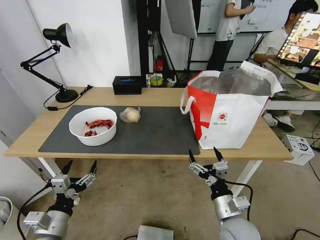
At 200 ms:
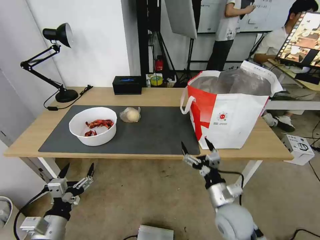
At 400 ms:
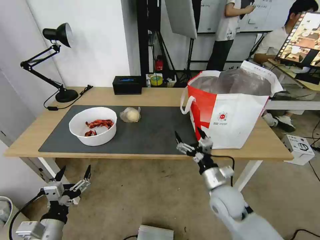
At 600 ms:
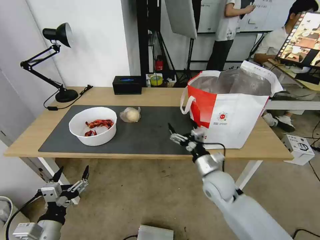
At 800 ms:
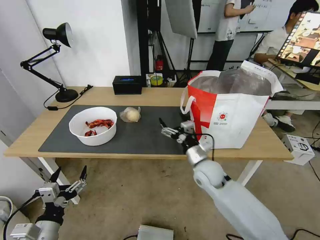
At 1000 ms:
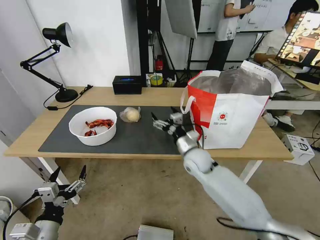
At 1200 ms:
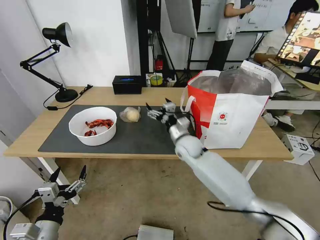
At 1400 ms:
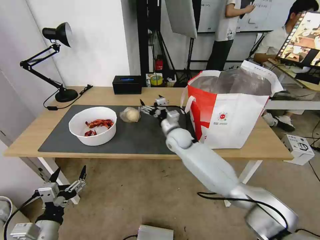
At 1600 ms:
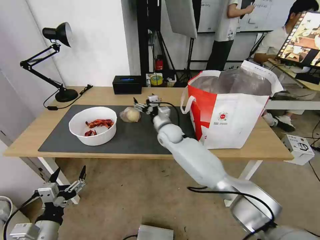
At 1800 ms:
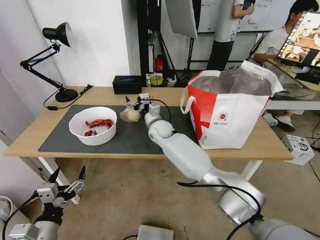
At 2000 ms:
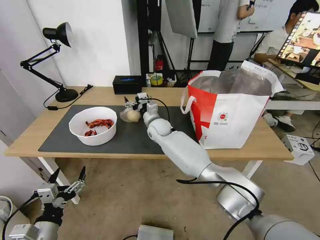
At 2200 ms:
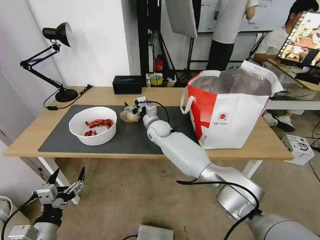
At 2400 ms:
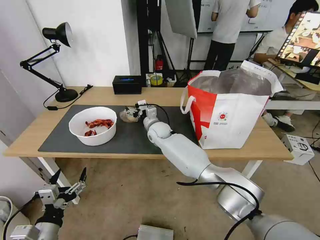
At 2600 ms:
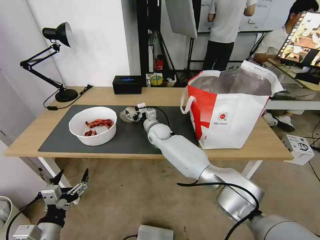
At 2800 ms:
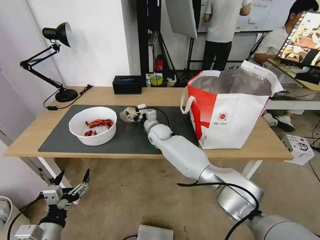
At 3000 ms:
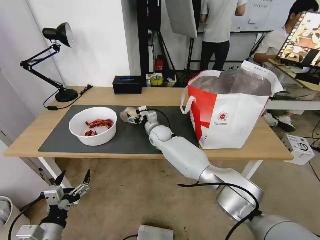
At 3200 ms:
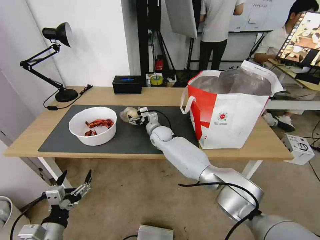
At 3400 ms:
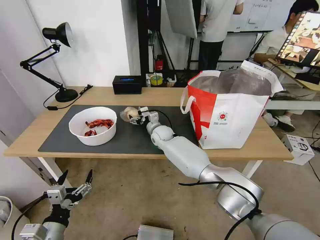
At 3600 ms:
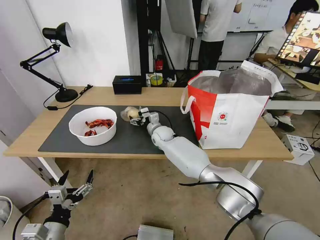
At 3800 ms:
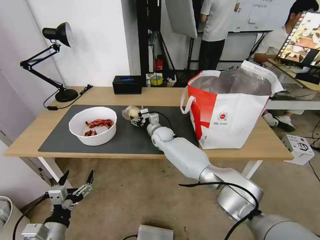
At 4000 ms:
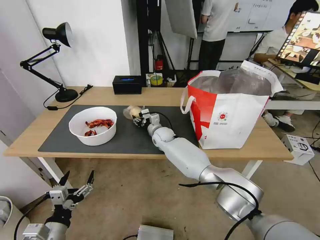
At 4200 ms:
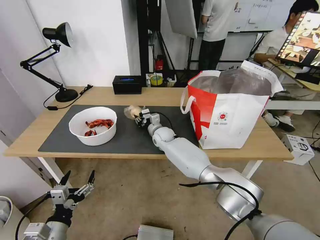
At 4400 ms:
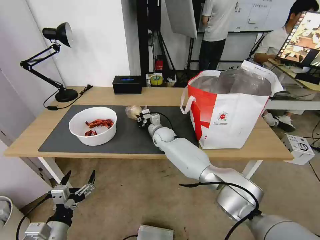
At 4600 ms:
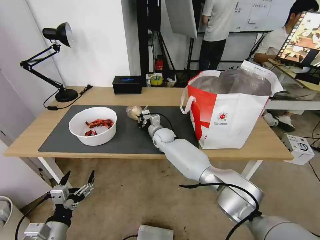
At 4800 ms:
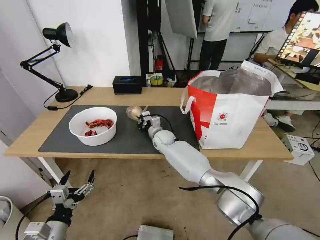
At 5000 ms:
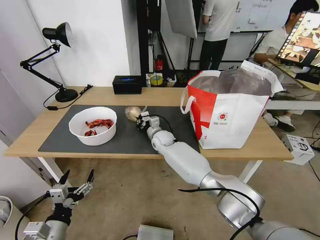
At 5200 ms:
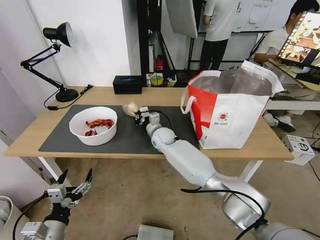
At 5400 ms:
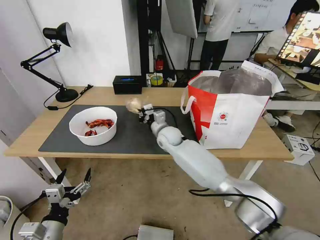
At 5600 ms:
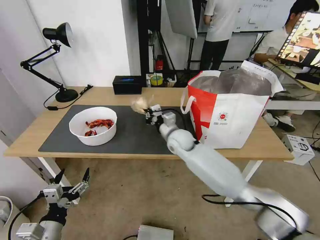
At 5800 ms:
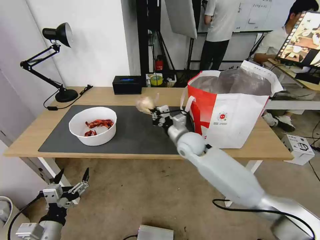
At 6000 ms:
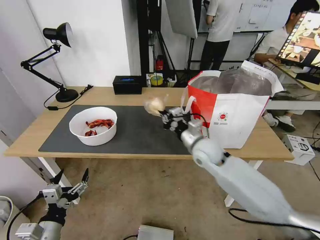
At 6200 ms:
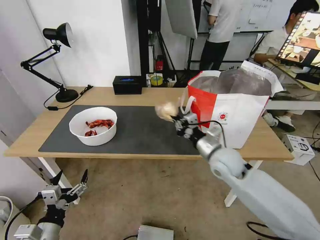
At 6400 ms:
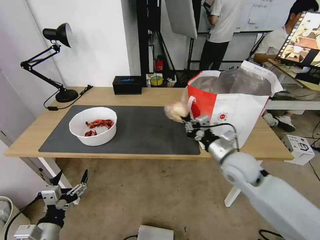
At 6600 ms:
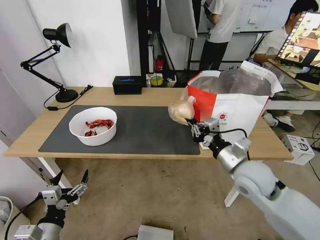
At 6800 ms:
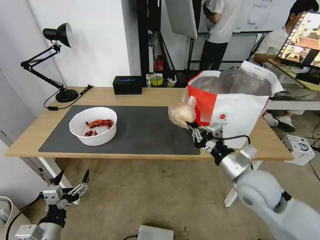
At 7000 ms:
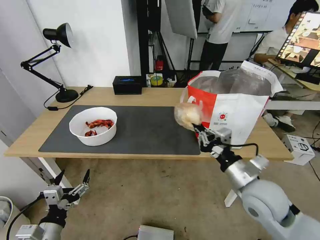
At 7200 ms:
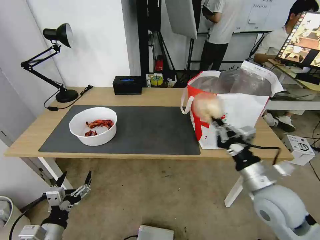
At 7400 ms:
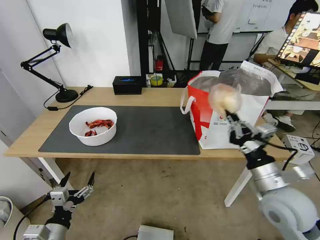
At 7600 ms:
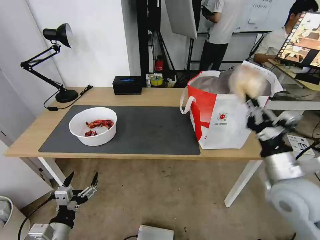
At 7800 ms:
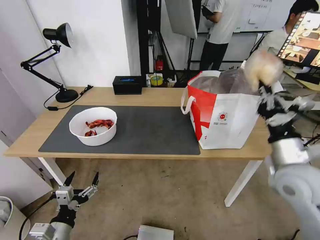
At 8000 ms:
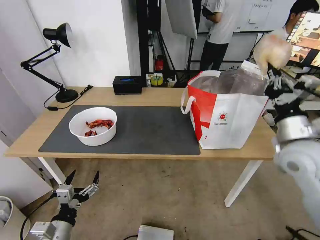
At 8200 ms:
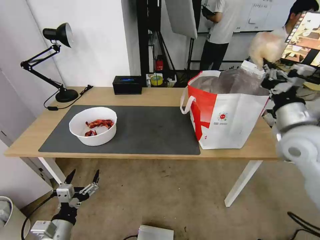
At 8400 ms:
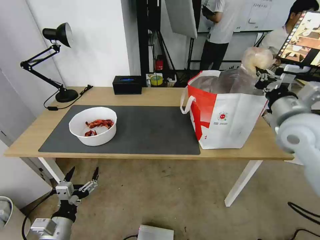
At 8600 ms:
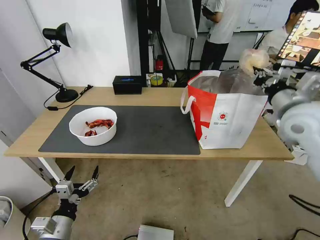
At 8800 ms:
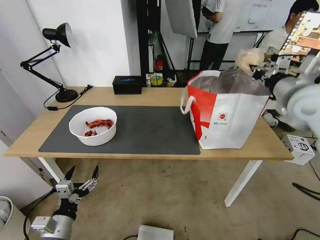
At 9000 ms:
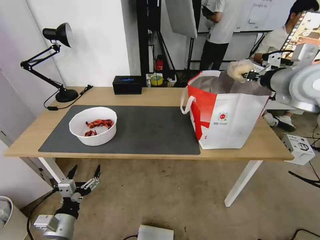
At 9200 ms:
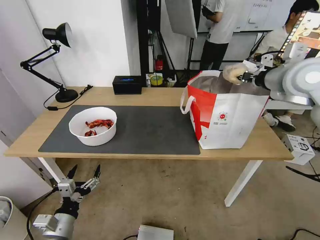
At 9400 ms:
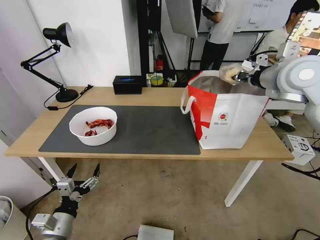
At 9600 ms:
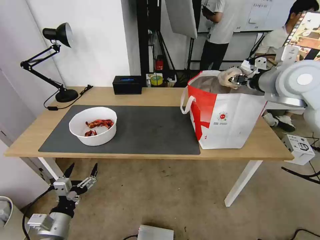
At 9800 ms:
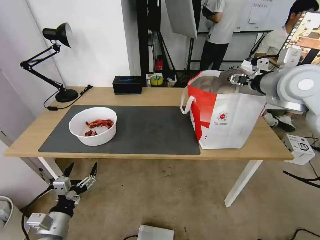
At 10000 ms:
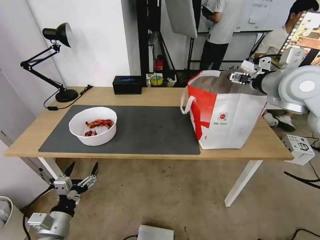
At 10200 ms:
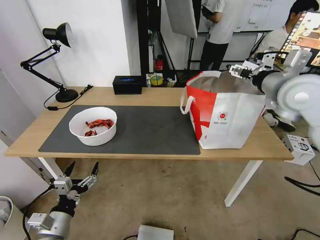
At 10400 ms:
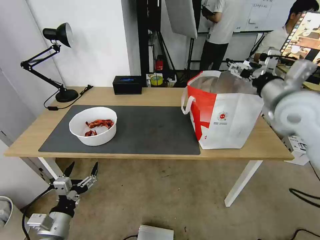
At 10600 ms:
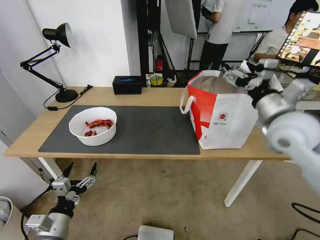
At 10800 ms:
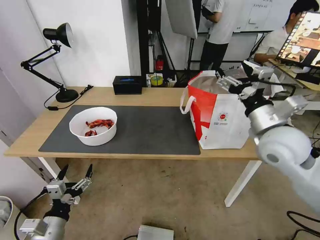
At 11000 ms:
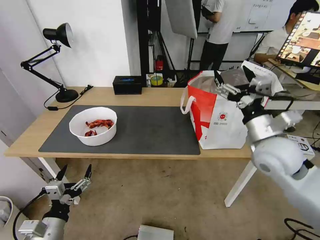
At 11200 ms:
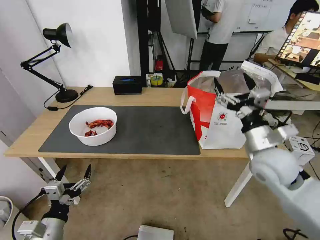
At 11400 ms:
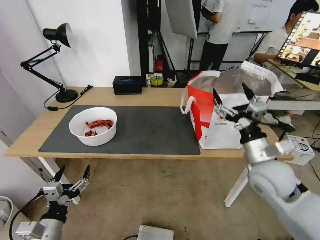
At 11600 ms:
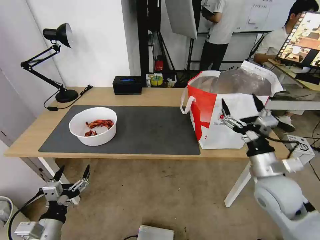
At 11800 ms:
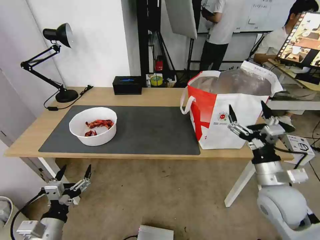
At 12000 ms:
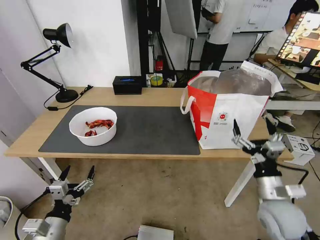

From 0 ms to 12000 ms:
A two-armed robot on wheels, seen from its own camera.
Task of the whole recording: Pick up the trash from the table and place it into the takeout bag.
From 0 ms to 1600 ms: The right gripper heads forward and to the left, covering approximately 40 cm.
From 1600 ms to 3000 ms: The right gripper ends up approximately 5 cm from where it was.
From 3000 ms to 4400 ms: The right gripper closes its fingers.
From 4400 ms to 6000 ms: The right gripper shifts roughly 25 cm backward, to the right and upward.
From 6000 ms to 7600 ms: The right gripper shifts roughly 20 cm backward and to the right.
From 7600 ms to 9000 ms: The right gripper travels upward and forward by about 25 cm.
From 9000 ms to 10400 ms: The right gripper goes roughly 5 cm downward, and opens its fingers.
From 10400 ms to 12000 ms: The right gripper goes roughly 30 cm downward and backward.

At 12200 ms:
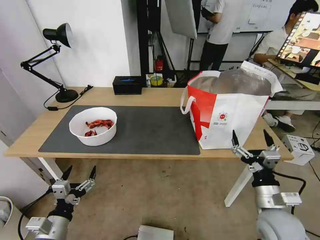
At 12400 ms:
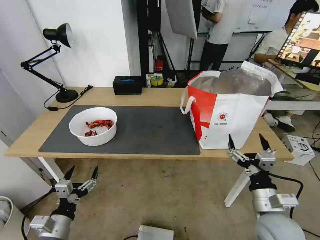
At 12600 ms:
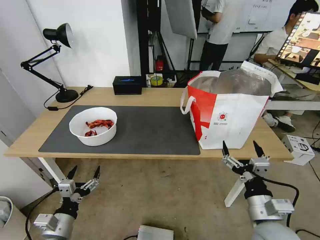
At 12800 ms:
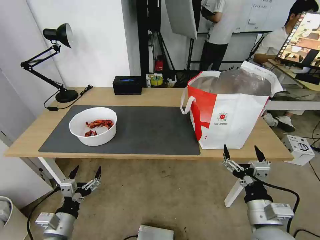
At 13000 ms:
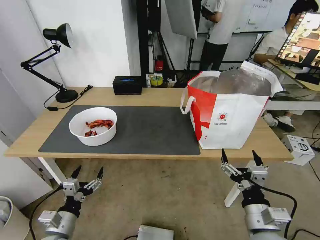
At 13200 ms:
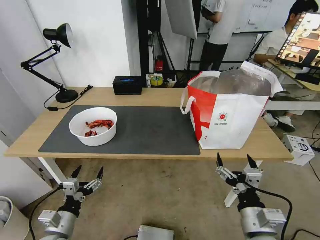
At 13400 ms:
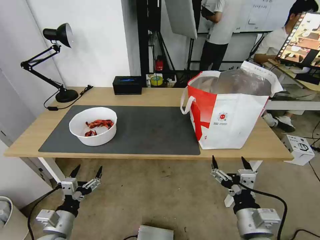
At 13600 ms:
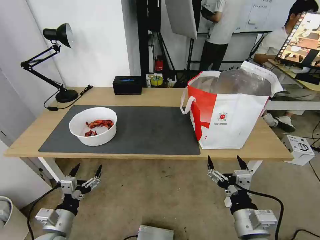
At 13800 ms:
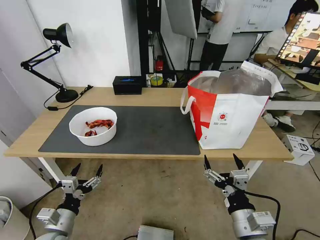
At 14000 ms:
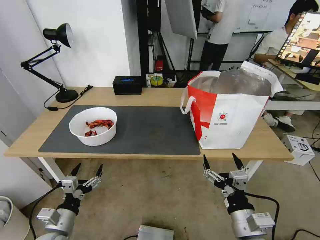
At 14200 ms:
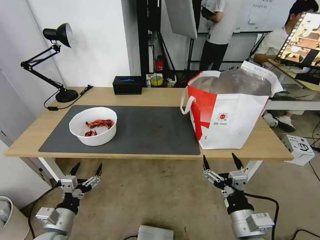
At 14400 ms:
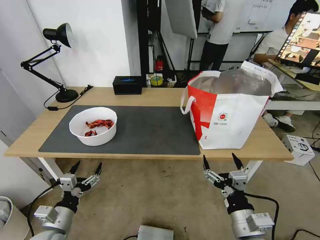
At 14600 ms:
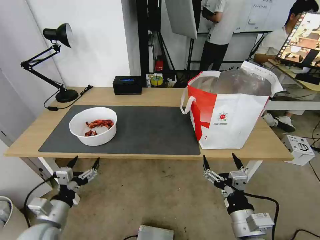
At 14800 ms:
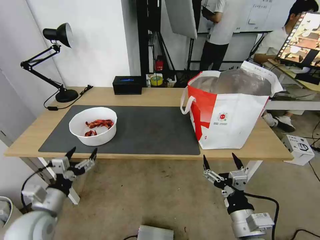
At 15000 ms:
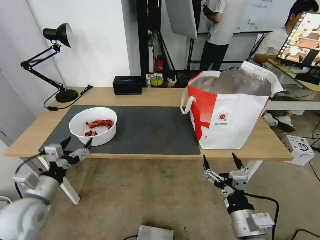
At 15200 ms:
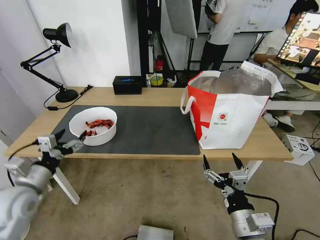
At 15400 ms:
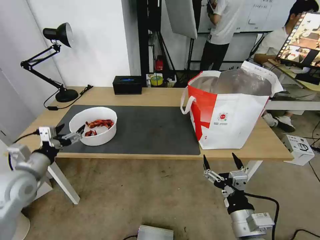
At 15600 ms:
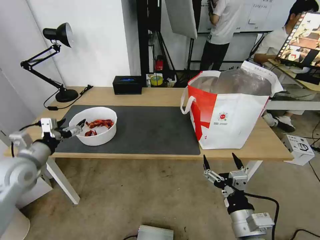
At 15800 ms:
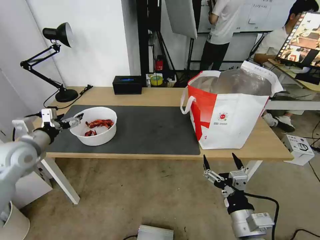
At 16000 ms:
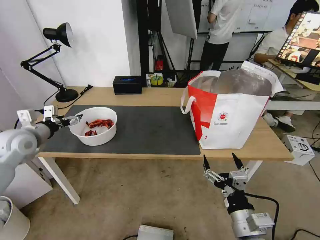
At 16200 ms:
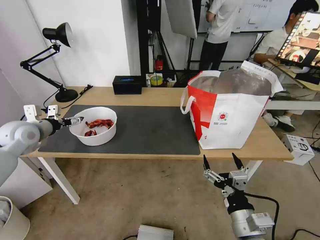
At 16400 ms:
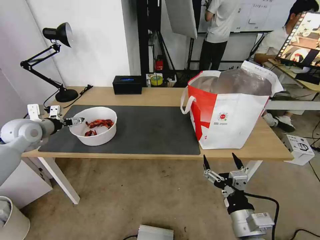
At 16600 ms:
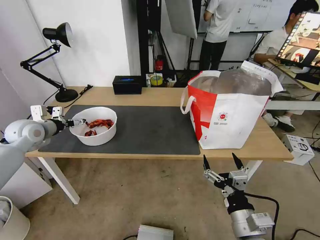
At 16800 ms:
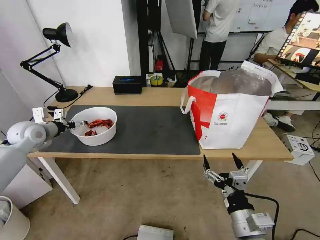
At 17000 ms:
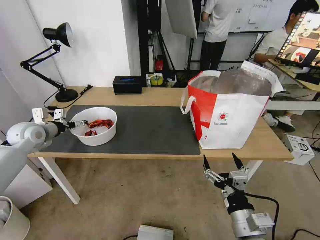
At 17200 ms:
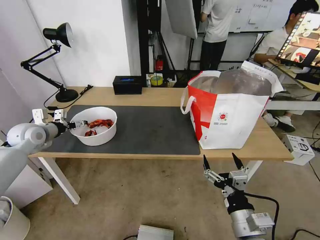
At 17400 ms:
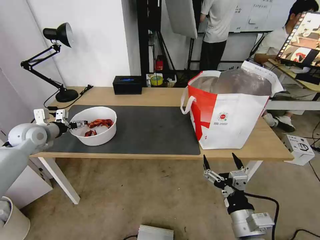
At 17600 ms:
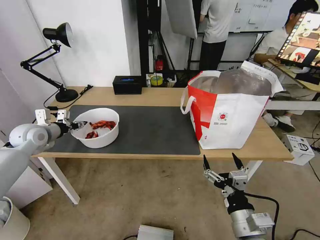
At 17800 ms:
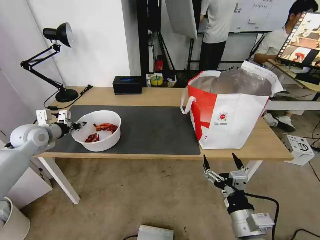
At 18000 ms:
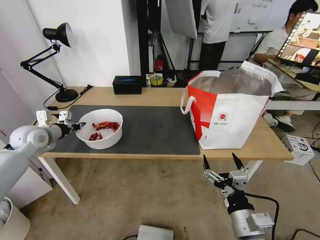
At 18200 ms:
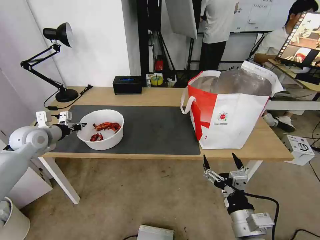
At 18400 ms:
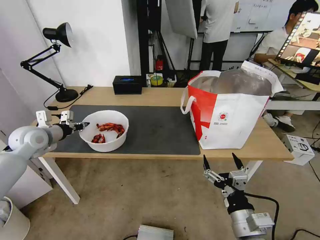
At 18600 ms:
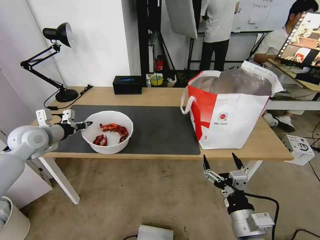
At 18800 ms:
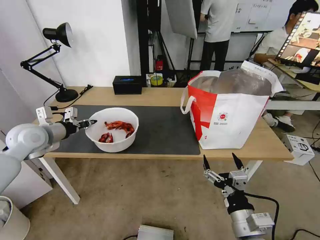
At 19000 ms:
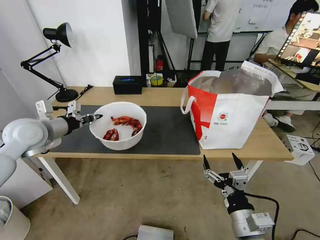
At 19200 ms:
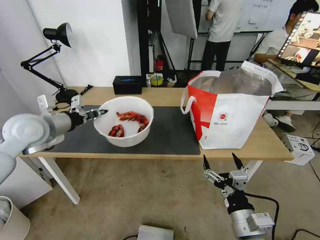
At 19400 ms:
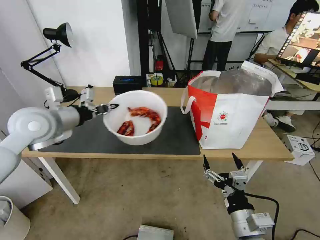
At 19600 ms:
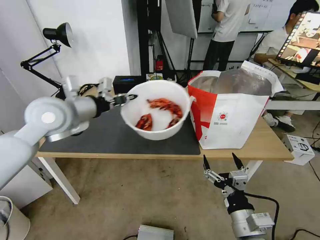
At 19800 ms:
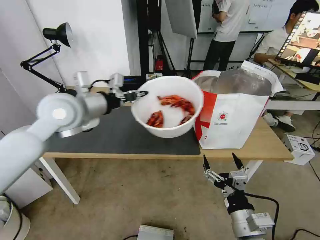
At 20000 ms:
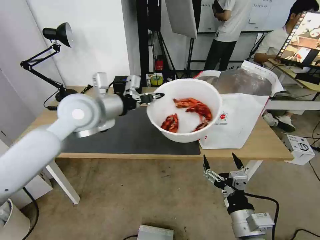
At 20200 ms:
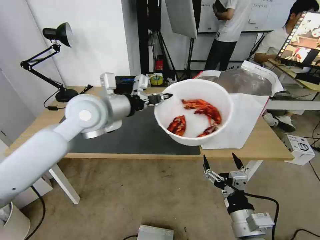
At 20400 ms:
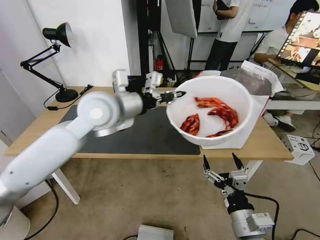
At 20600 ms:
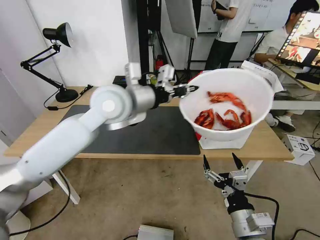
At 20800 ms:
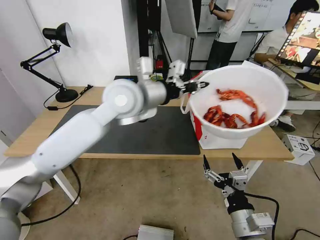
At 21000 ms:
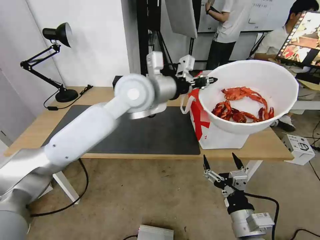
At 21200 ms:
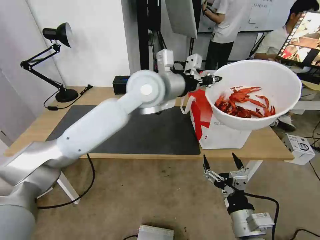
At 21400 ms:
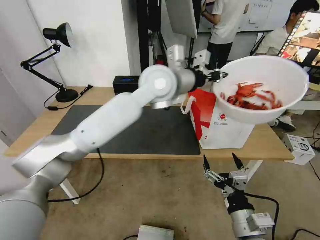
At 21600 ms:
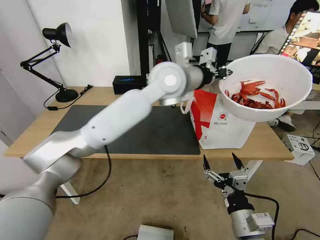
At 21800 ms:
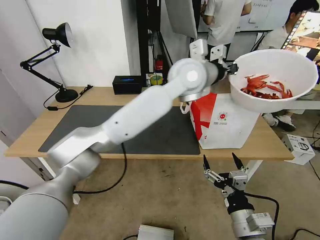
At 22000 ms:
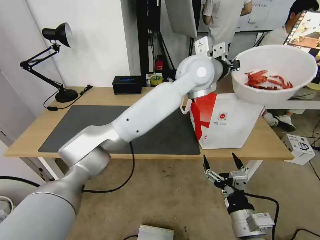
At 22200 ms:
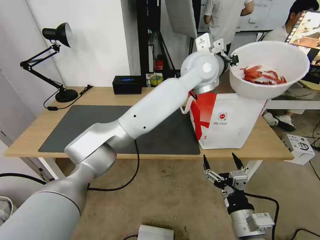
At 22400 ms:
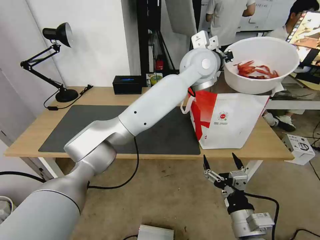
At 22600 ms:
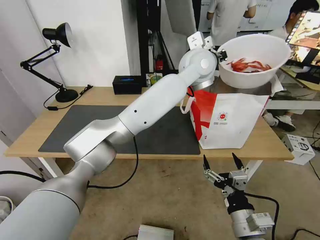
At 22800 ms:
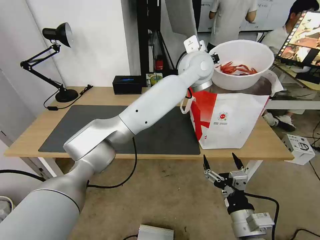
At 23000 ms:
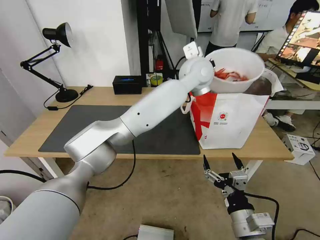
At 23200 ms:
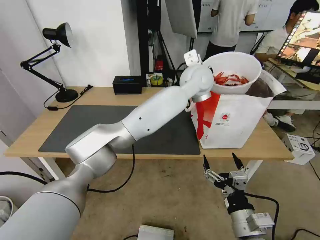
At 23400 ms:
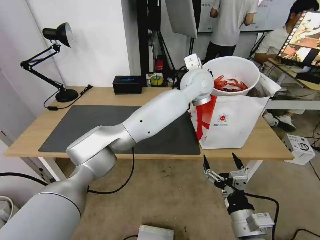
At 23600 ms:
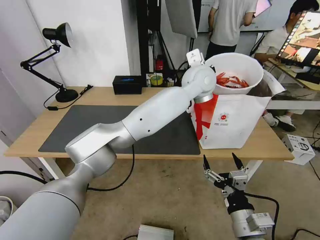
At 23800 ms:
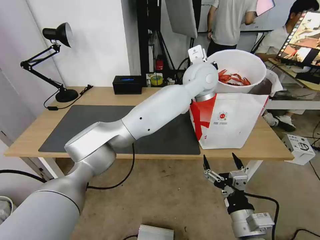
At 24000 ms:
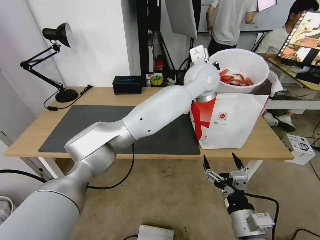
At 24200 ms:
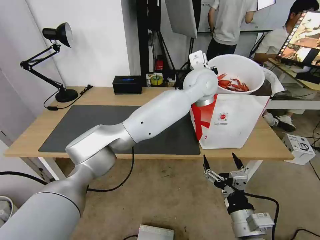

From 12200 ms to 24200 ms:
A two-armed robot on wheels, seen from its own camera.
Task of the whole recording: Pick up the trash from the table and place it into the takeout bag.
From 12200 ms to 13800 ms: The right gripper travels to the left and backward by some 10 cm.
From 13800 ms to 15200 ms: The left gripper heads upward, forward and to the left, covering about 15 cm.
From 15200 ms to 16600 ms: The left gripper shifts approximately 20 cm forward.
From 16600 ms to 18200 ms: The left gripper closes up.
From 18200 ms to 19800 ms: The left gripper goes approximately 25 cm to the right and upward.
From 19800 ms to 21200 ms: The left gripper moves to the right, about 20 cm.
From 21200 ms to 22600 ms: The left gripper heads to the right and forward, covering about 15 cm.
From 22600 ms to 24200 ms: The left gripper shifts by about 5 cm.
